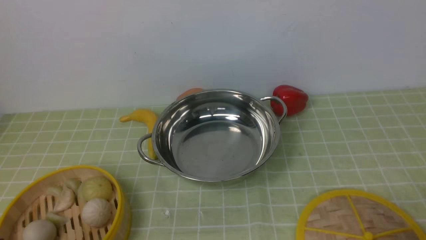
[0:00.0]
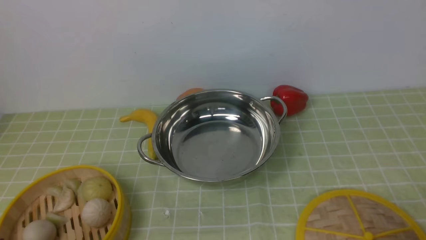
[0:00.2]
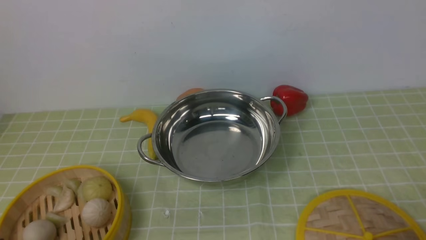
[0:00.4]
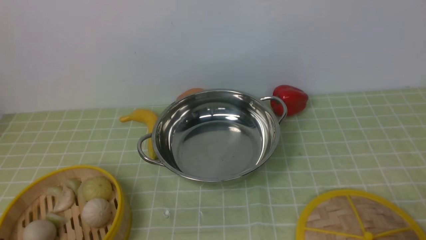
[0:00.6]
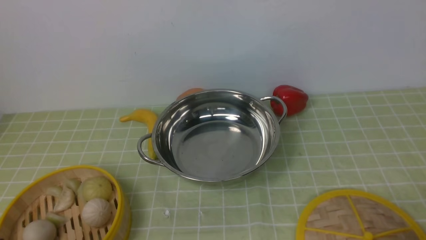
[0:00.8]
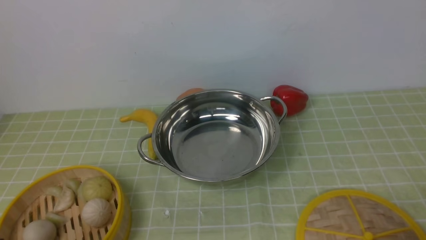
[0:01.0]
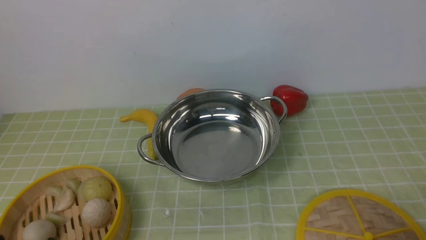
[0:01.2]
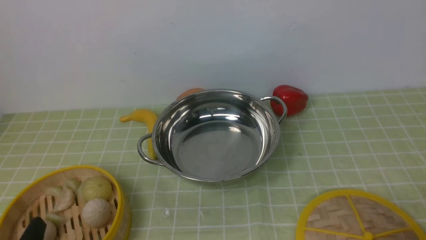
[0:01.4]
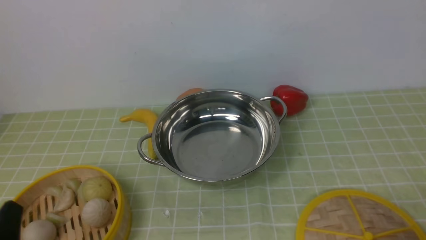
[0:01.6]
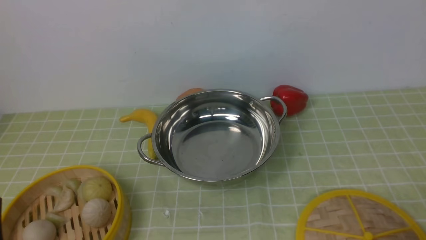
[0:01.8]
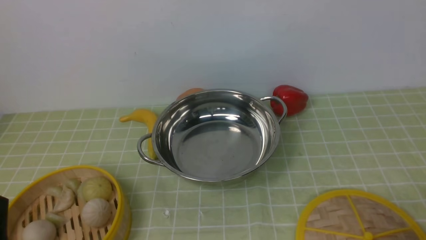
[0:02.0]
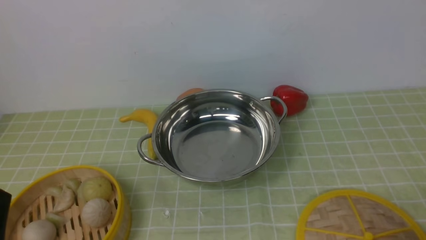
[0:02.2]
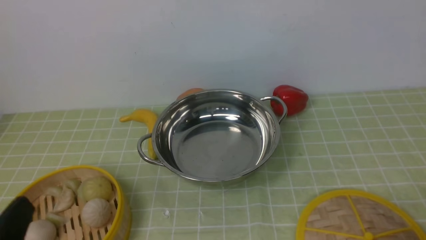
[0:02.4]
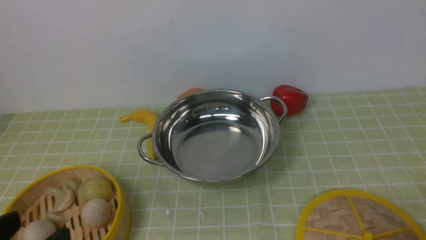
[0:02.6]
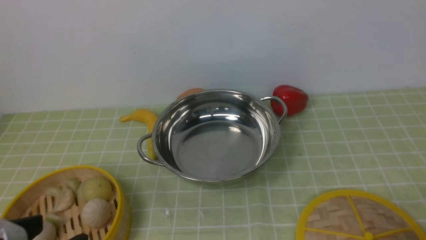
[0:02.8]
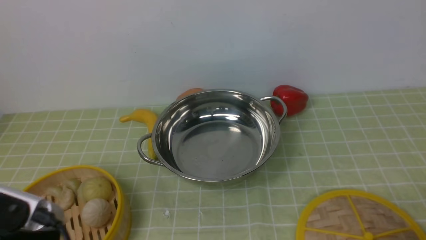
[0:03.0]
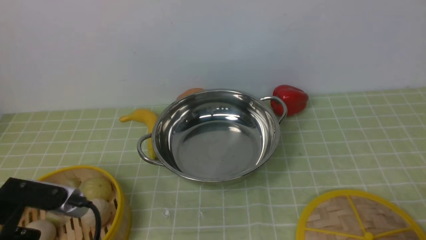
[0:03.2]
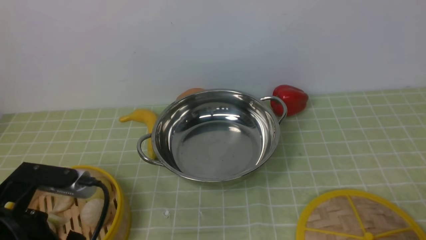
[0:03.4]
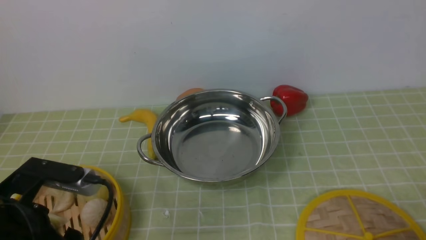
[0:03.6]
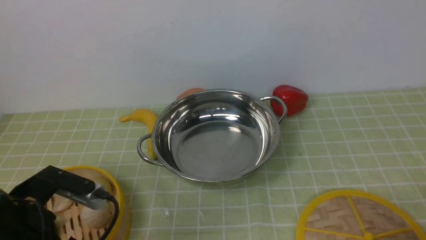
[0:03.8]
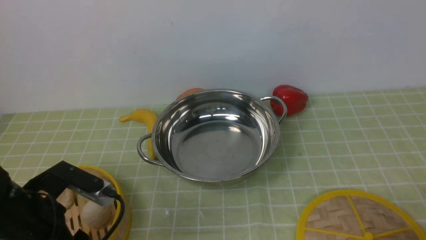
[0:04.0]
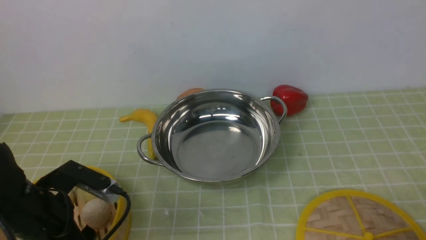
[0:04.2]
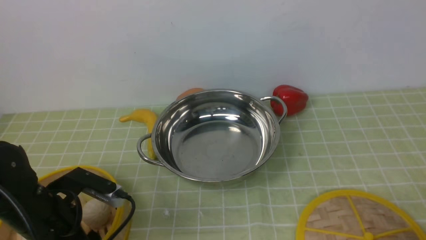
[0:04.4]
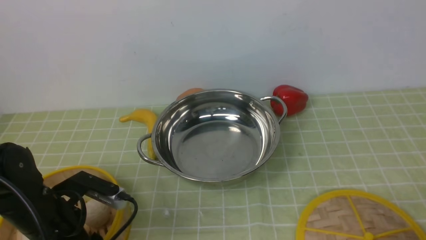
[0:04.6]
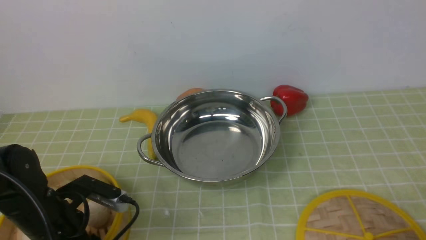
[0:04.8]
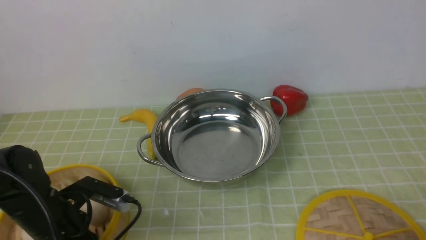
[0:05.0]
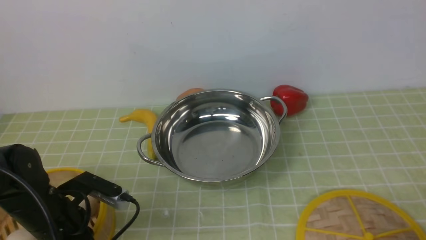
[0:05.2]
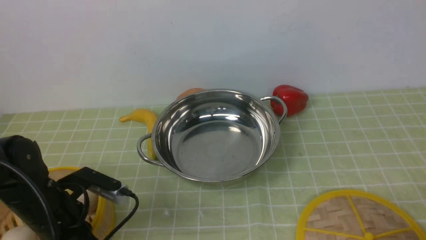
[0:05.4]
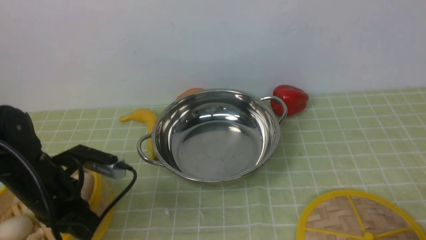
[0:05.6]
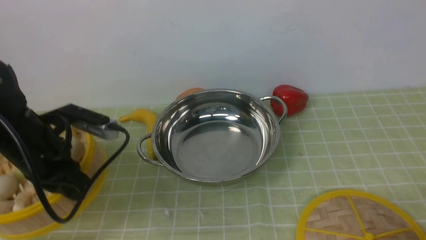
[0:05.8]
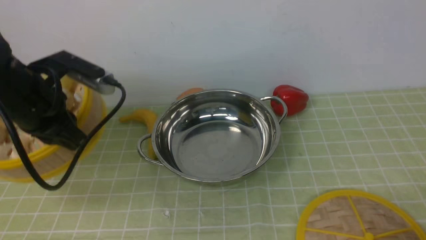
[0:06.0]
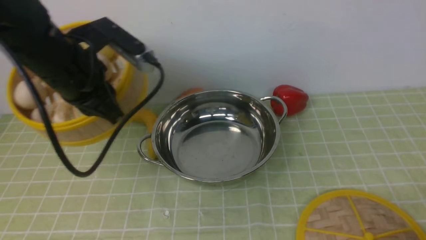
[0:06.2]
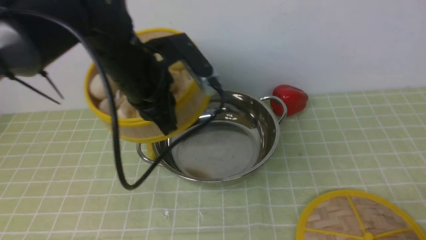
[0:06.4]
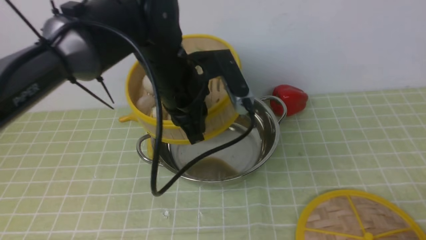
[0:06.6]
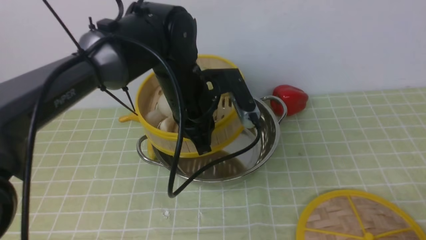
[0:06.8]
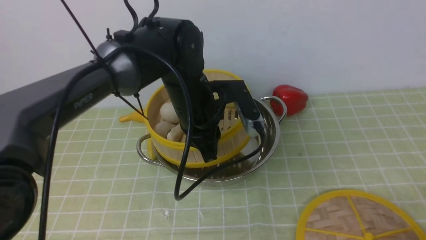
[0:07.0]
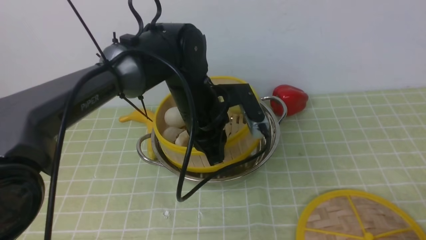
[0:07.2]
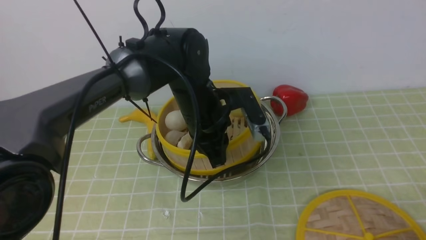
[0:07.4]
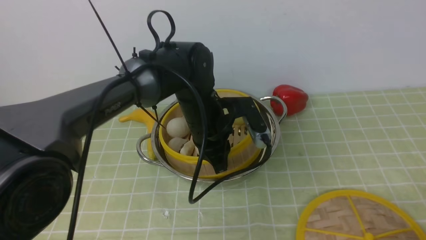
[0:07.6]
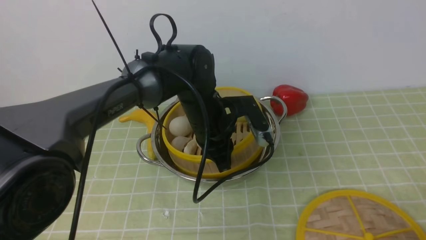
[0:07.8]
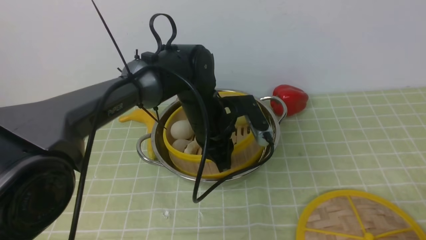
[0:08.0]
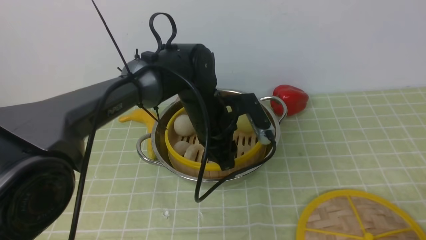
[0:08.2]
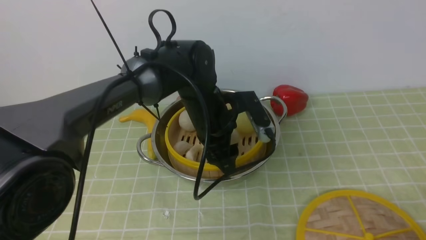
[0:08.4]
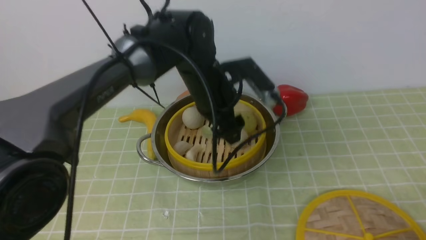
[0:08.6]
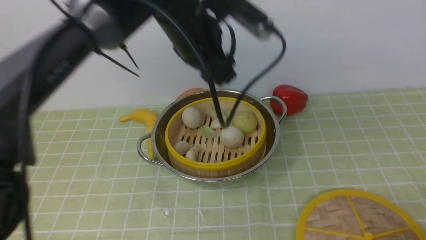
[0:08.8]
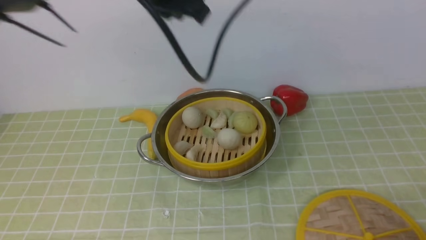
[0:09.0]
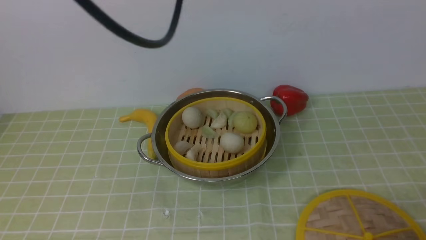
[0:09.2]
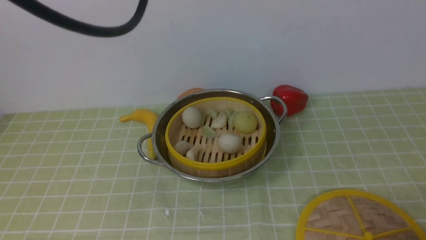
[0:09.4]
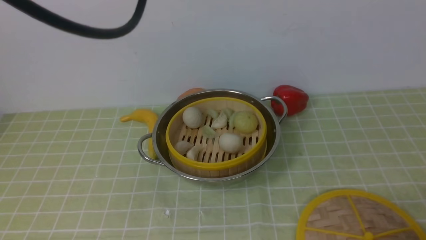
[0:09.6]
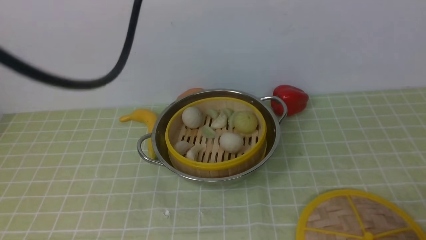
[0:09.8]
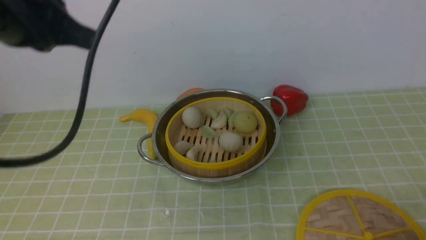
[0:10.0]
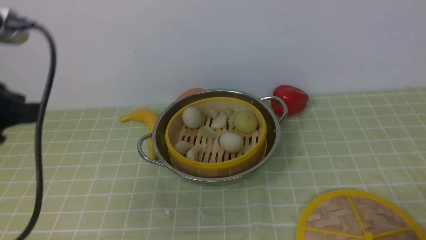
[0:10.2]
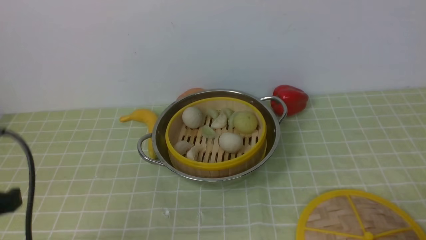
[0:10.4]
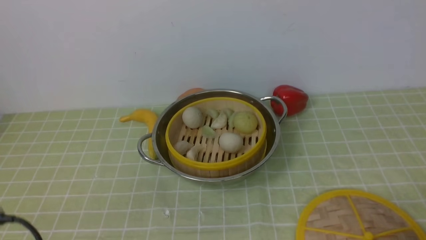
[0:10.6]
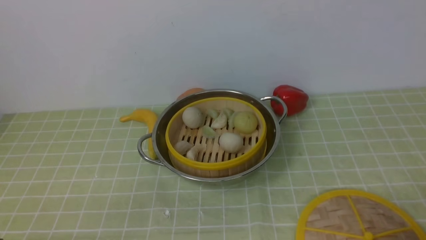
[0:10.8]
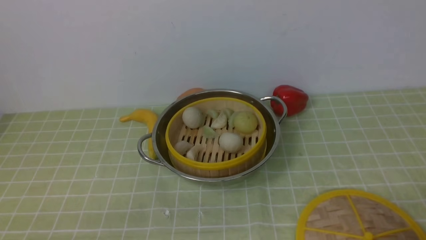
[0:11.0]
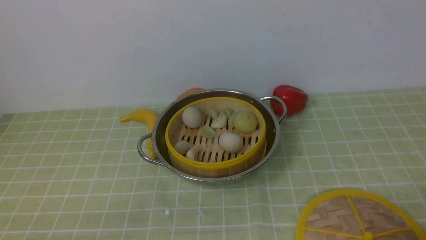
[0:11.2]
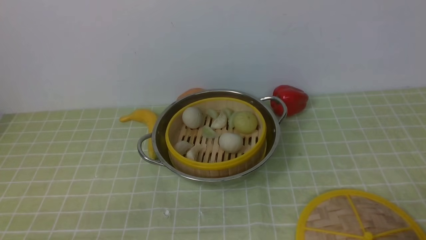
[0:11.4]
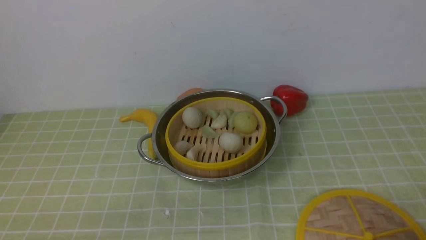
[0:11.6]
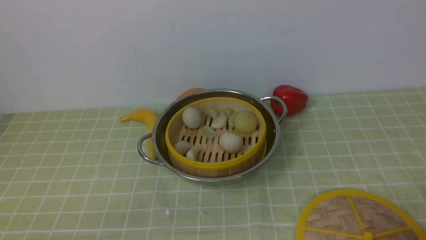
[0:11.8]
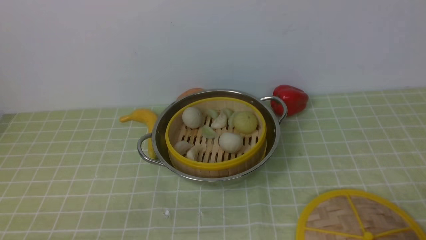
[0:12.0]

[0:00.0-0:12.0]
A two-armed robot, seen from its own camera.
Task of the whole recording: place the steamer in the pot on the green tablecloth, and put the lid on the steamer.
Step, 0:00.0 to 0:06.0: use the left arm to lift the steamer closest to it.
Step, 0:06.4 to 0:08.8: use the left arm to put the steamer into the iron steamer pot in the middle.
0:01.6 to 0:03.0: The left gripper shifts roughly 5 cm upward.
0:03.0 to 0:04.4: The left gripper moves forward and downward, about 15 cm.
0:04.4 to 0:06.0: The left gripper is displaced upward and forward by roughly 15 cm, and closes its fingers.
0:06.0 to 0:07.6: The left gripper heads to the right and downward, covering some 20 cm.
0:07.6 to 0:09.0: The left gripper heads upward, covering about 25 cm, and opens, then closes once more.
0:09.0 to 0:10.4: The left gripper heads backward, to the left and downward, covering roughly 35 cm.
0:10.4 to 0:12.0: The left gripper goes about 15 cm downward and backward.

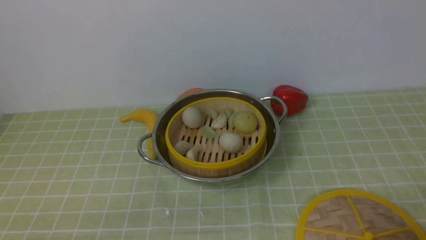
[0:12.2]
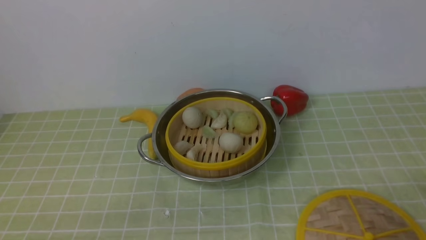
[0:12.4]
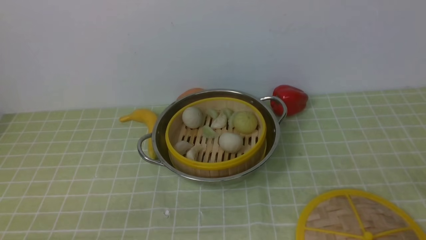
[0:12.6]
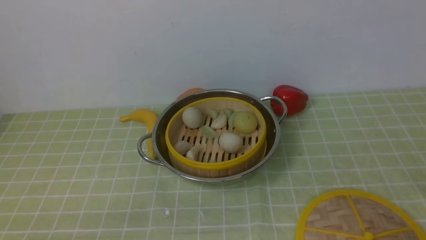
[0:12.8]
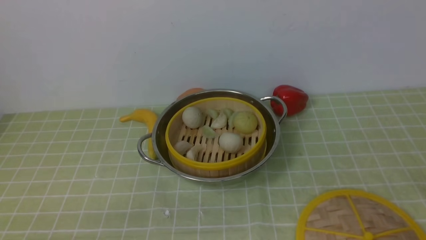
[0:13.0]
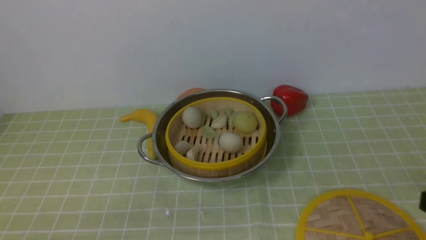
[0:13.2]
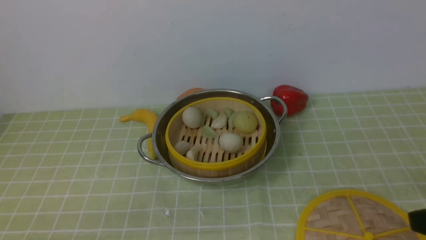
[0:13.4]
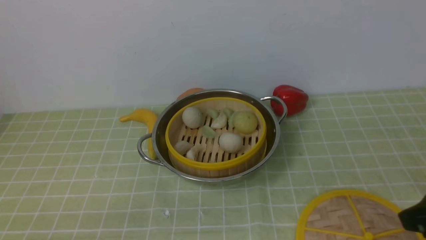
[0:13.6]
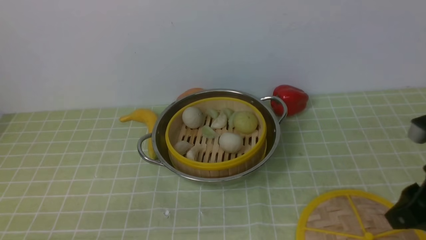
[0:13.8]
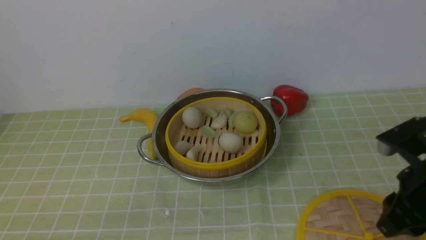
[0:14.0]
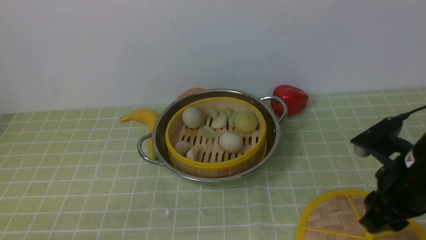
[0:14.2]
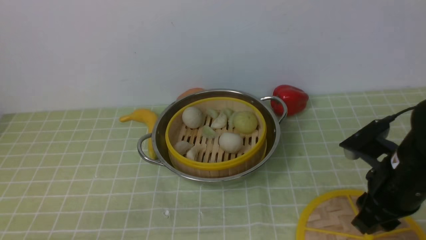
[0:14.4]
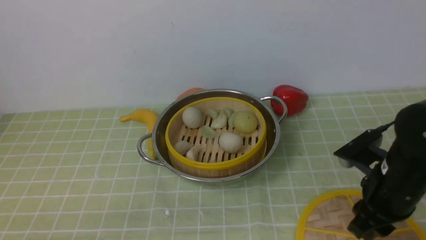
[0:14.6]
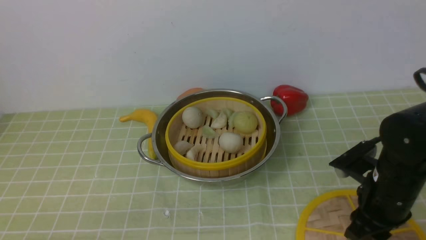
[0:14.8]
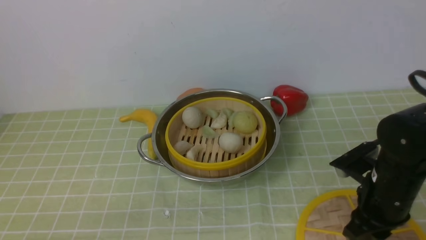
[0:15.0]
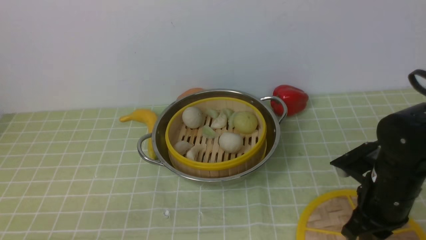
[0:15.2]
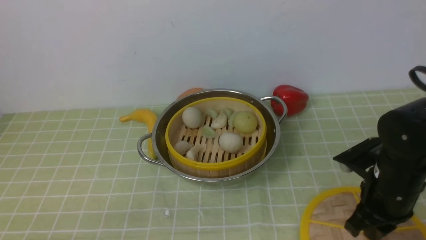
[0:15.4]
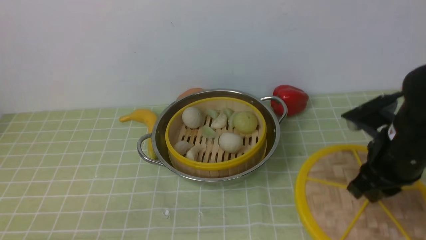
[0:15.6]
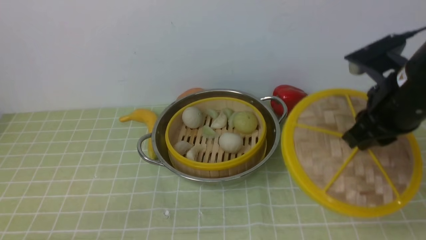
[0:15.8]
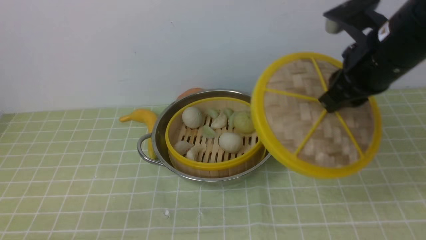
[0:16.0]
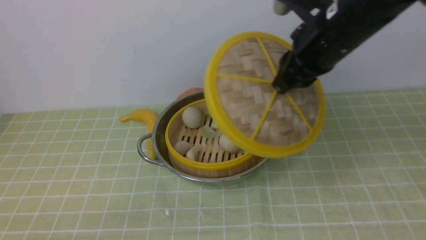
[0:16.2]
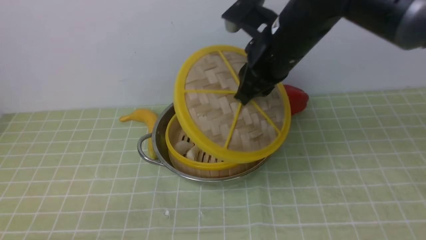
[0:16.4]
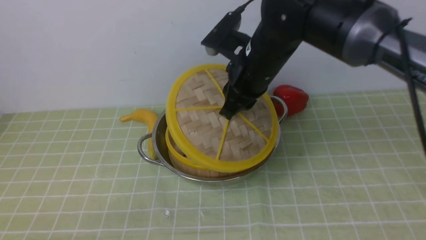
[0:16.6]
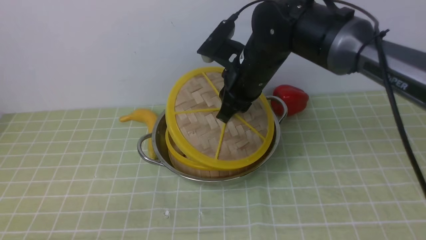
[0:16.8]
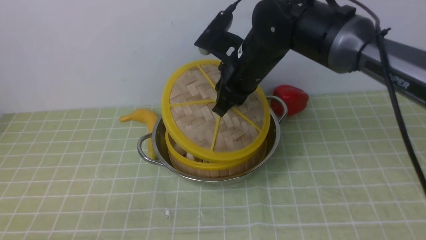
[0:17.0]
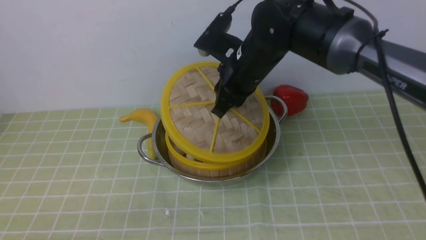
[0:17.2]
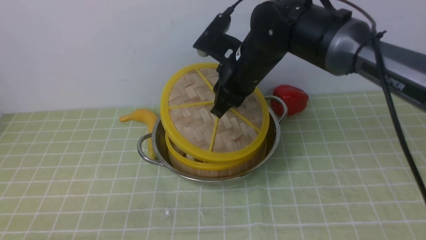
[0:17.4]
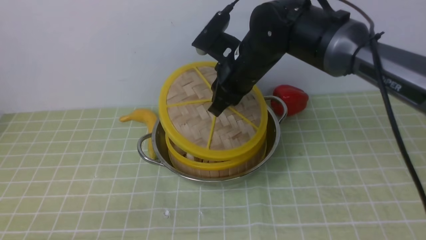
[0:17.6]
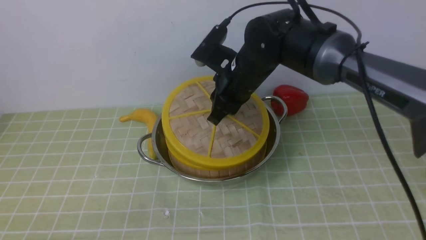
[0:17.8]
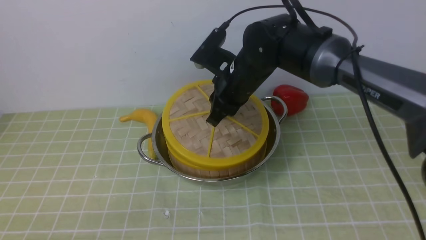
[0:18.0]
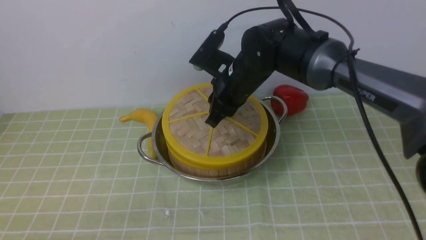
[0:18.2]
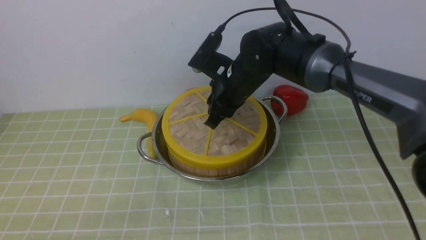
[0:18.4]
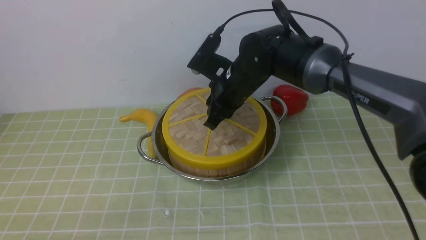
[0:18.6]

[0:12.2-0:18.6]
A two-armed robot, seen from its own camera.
Task of the whole recording: place the steamer in the pot on the green tablecloth, and put the lid on the steamer.
Step, 0:12.2 to 0:15.8: use the right arm to lift the lid of the steamer.
0:12.2 to 0:13.8: The right gripper moves forward, upward and to the left, some 15 cm.
0:13.8 to 0:15.4: The right gripper shifts about 10 cm forward and downward, and closes up.
0:15.4 to 0:17.0: The right gripper travels to the left, forward and upward by approximately 25 cm.
0:17.0 to 0:18.6: The right gripper shifts by about 5 cm.
